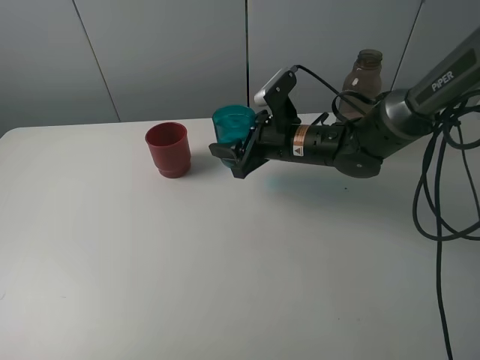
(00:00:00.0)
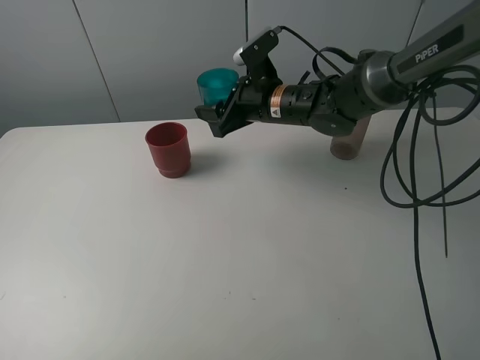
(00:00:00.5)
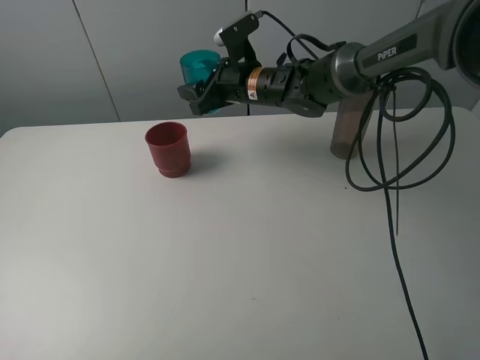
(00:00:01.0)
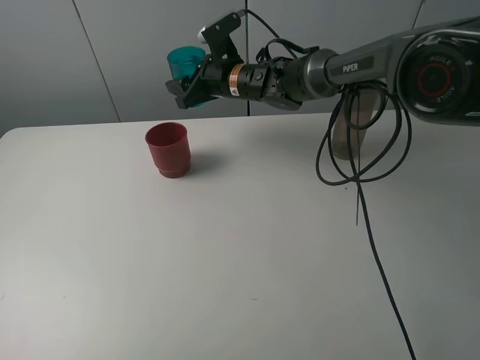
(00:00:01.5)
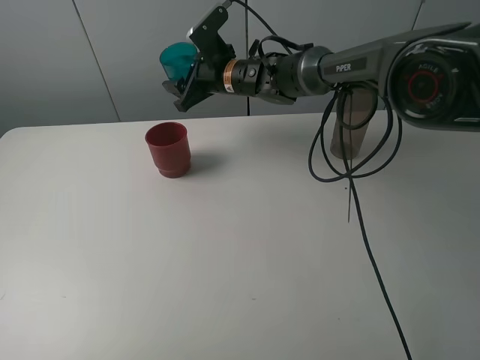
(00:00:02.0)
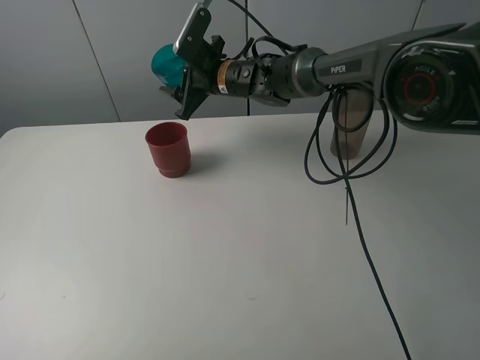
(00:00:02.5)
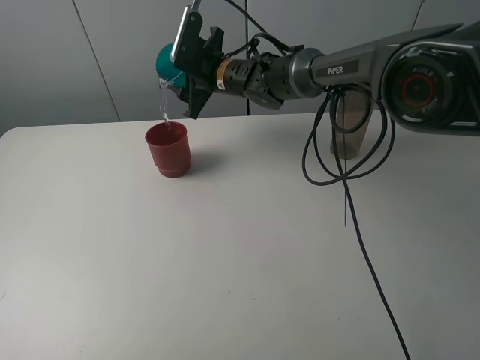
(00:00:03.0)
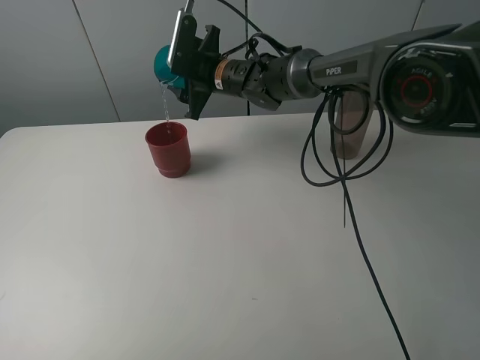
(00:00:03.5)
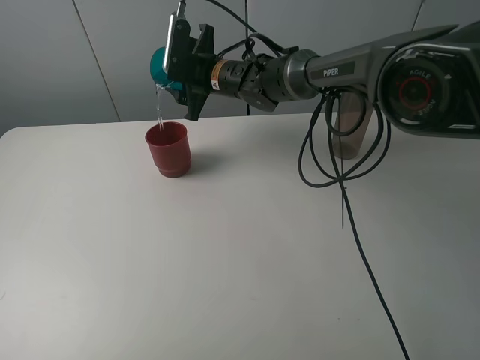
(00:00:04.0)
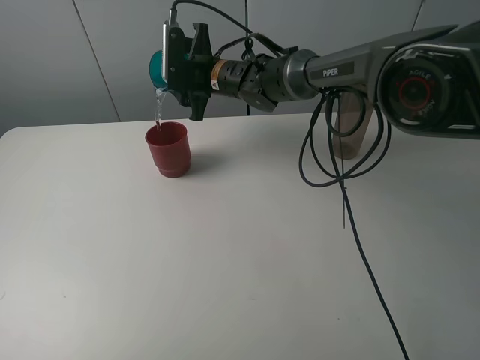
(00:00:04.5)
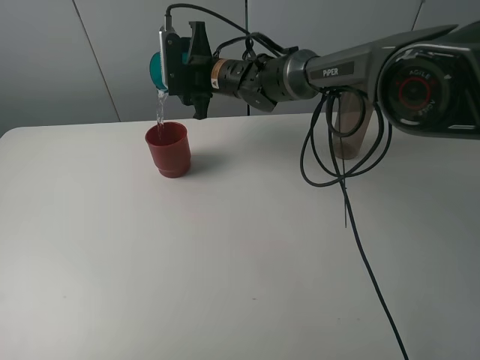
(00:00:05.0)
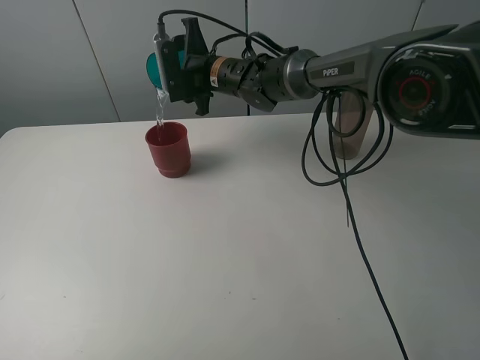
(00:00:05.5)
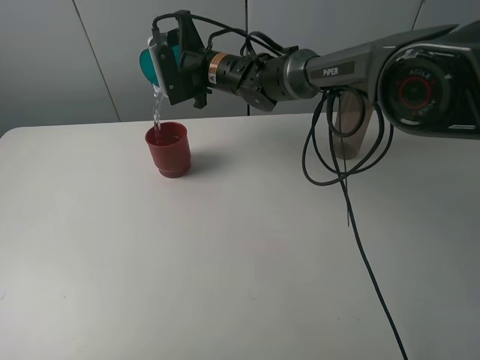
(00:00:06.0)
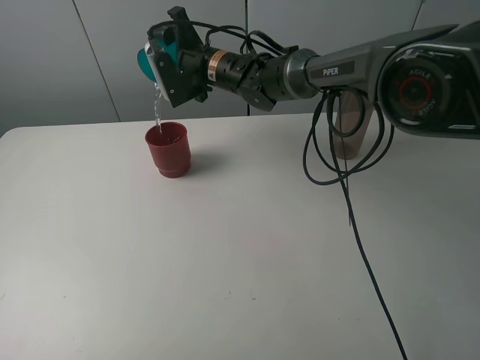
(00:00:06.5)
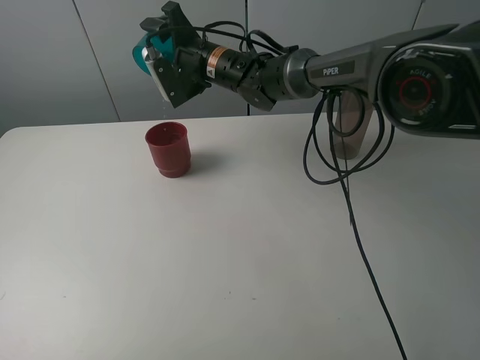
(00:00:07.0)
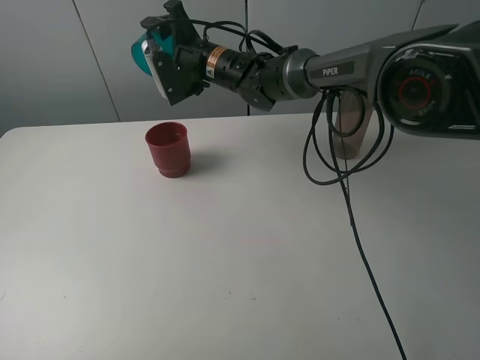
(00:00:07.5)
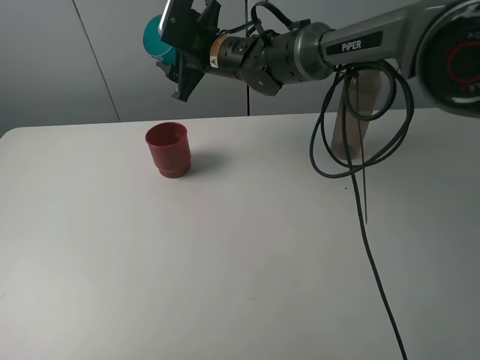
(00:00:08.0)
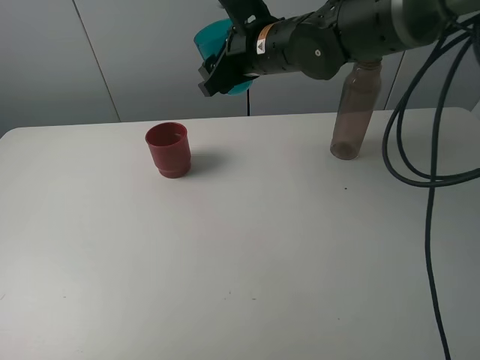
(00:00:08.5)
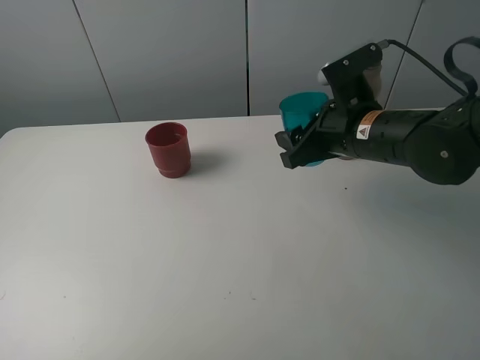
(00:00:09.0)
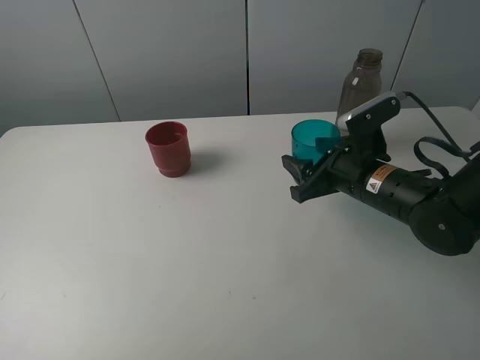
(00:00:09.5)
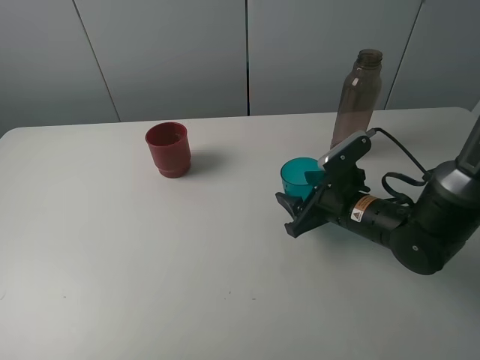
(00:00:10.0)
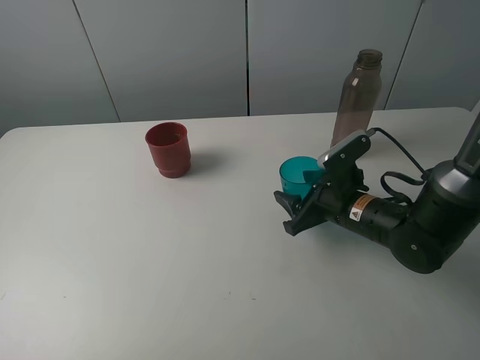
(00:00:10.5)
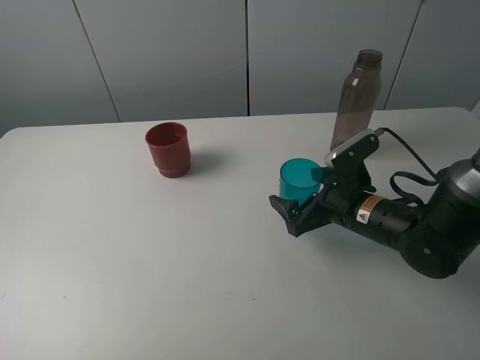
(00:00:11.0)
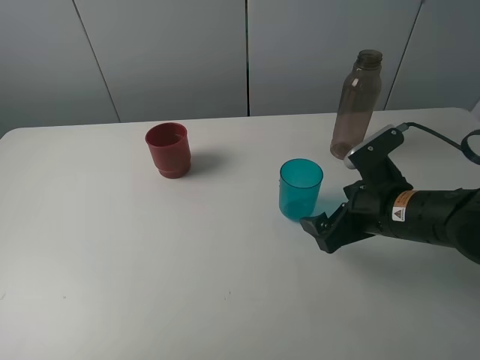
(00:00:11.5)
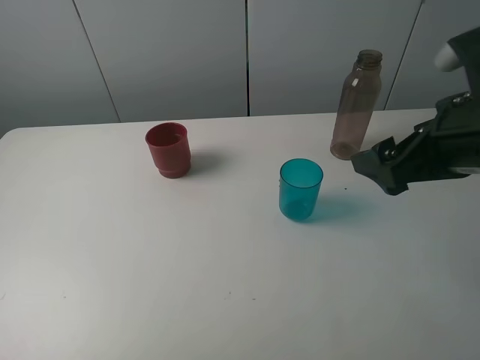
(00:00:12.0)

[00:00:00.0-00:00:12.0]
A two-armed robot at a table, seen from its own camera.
Task of the whole recording: pick up the bottle and pour water into the cup, then pick up the cup containing water and pour it into another cup.
Step, 00:00:00.0 to 00:00:06.5: Pour water from blue cup to red cup with the right gripper.
Step, 00:00:07.0 to 00:00:11.0: Place the blue cup with the right gripper.
00:00:00.0 to 00:00:02.0: The right gripper moves forward and to the left, approximately 15 cm.
00:00:08.0 to 00:00:10.0: The right gripper goes about 30 cm to the right, backward and downward.
00:00:10.0 to 00:00:12.0: The right gripper goes approximately 20 cm upward, and opens up.

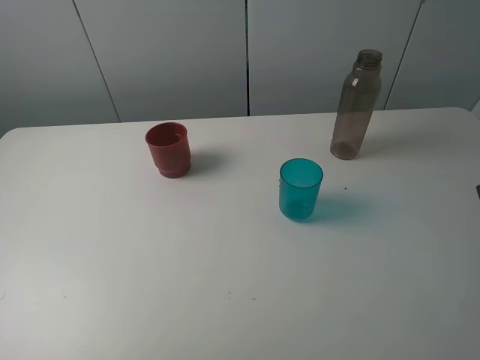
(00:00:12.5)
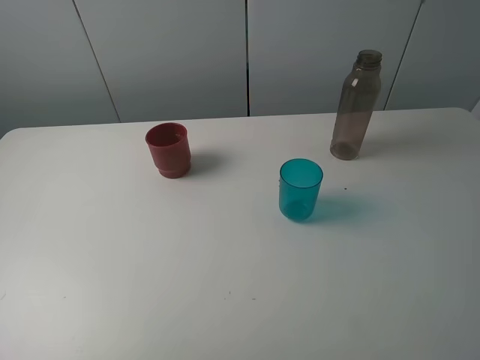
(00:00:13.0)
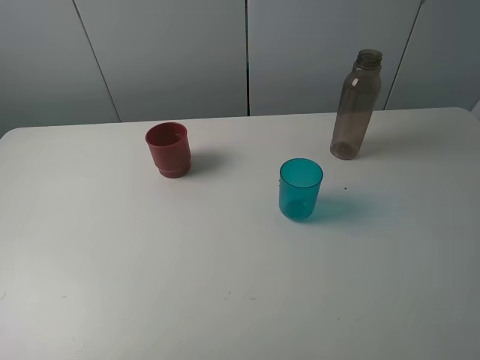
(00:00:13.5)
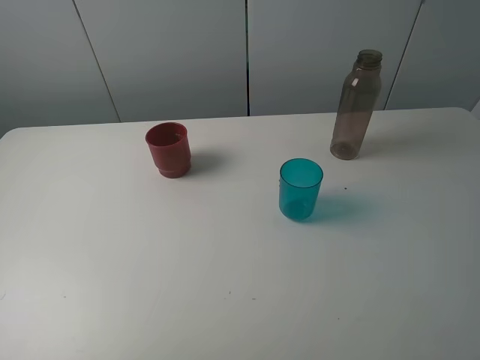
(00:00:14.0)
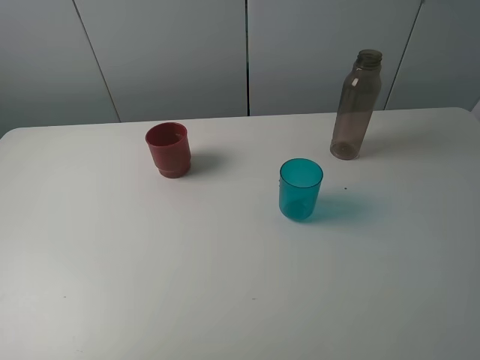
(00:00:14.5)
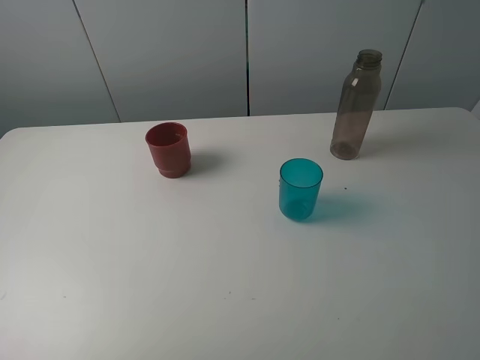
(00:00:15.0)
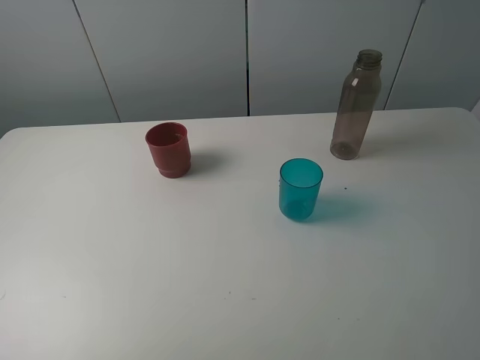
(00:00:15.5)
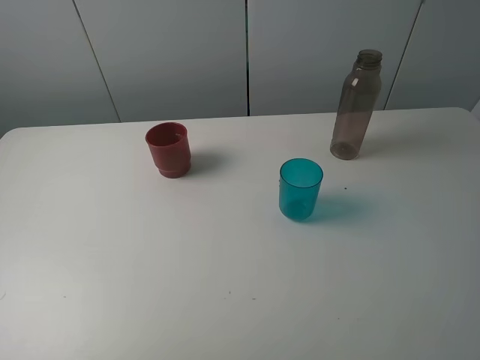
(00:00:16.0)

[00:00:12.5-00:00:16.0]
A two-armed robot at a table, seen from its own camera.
Task of the whole recording: pick up the bottle and pour water into the cup, then pick up the cup containing water and pour it into another cup.
00:00:14.5 to 00:00:16.0: The two grippers keep their place.

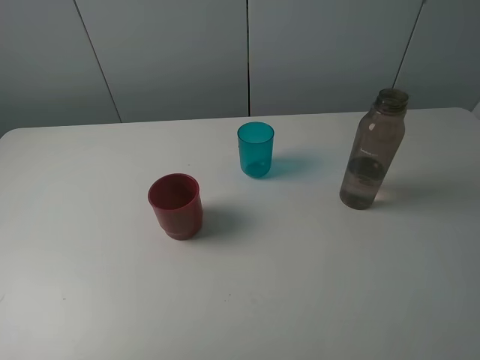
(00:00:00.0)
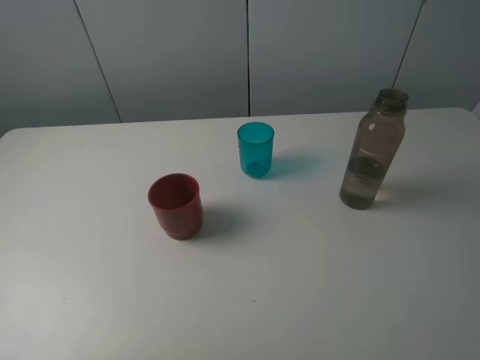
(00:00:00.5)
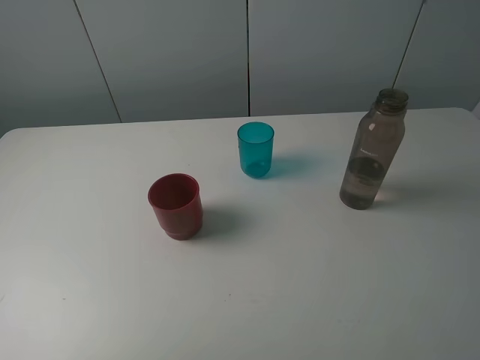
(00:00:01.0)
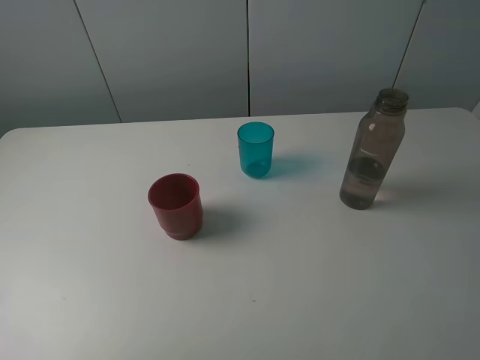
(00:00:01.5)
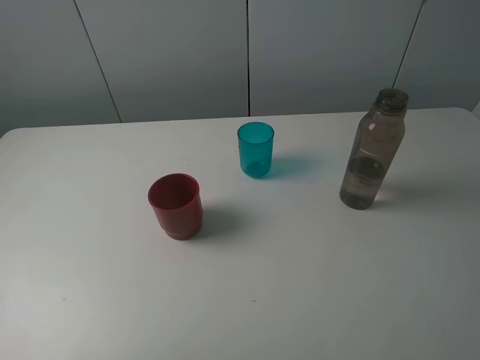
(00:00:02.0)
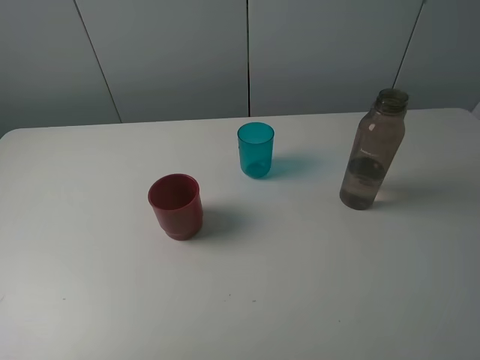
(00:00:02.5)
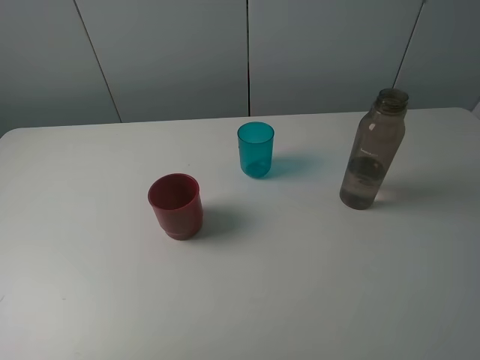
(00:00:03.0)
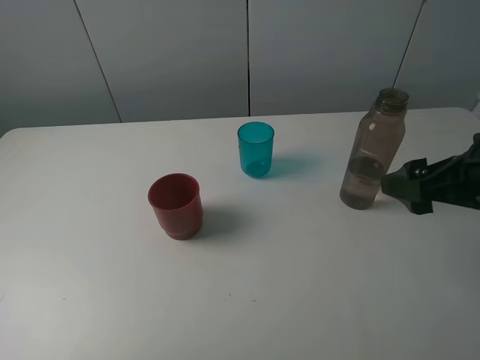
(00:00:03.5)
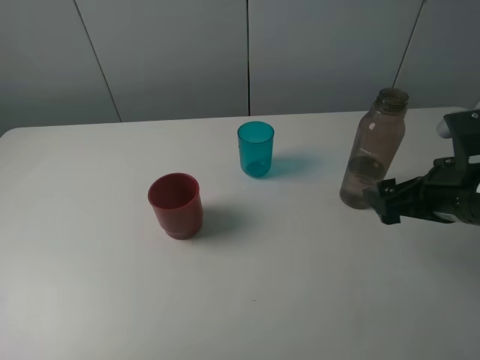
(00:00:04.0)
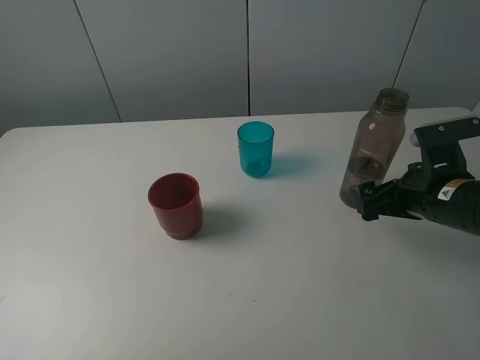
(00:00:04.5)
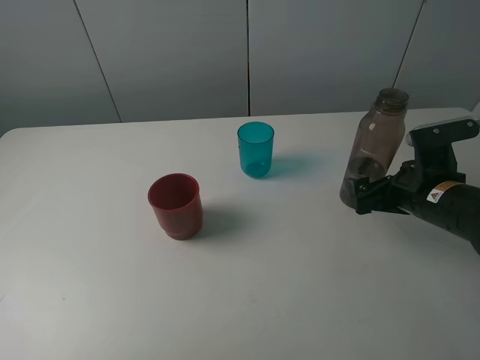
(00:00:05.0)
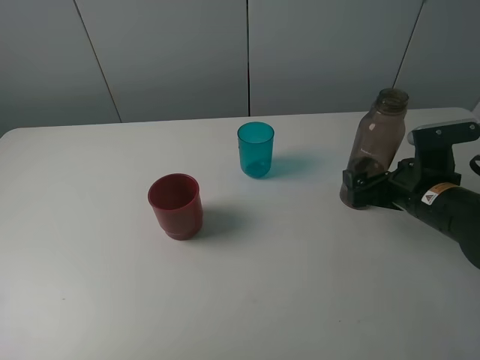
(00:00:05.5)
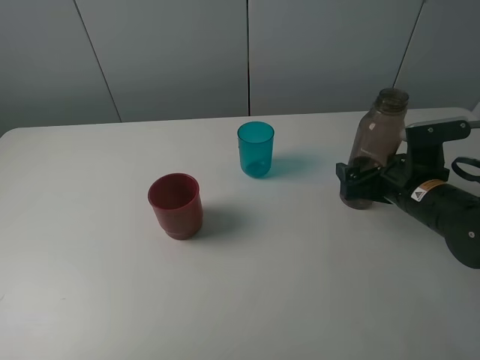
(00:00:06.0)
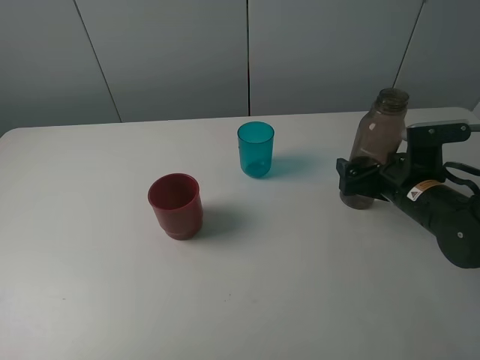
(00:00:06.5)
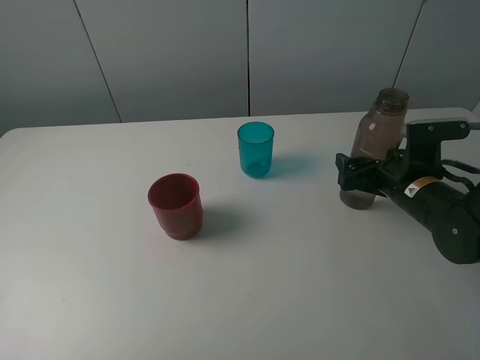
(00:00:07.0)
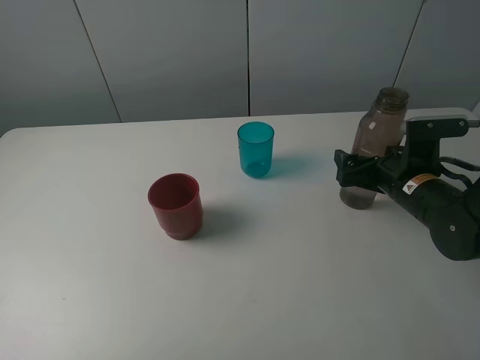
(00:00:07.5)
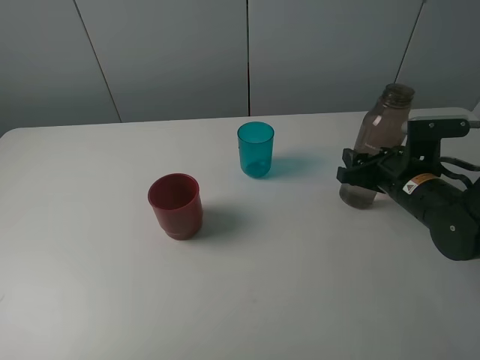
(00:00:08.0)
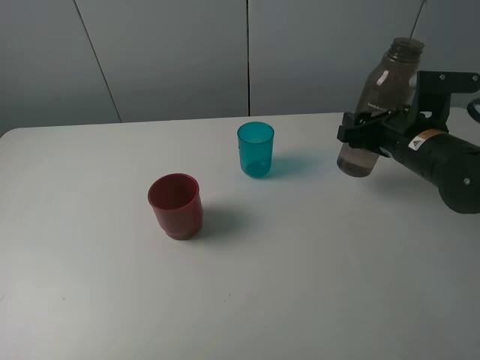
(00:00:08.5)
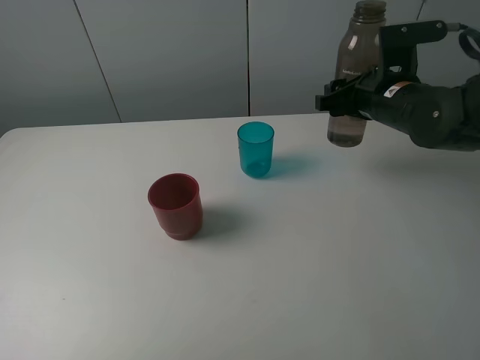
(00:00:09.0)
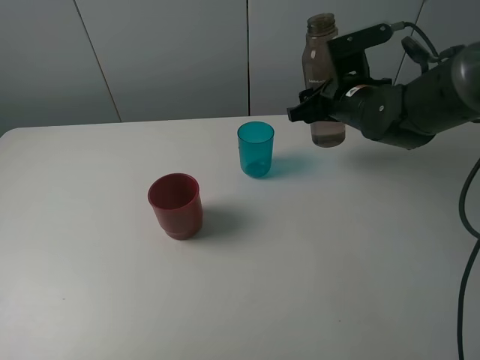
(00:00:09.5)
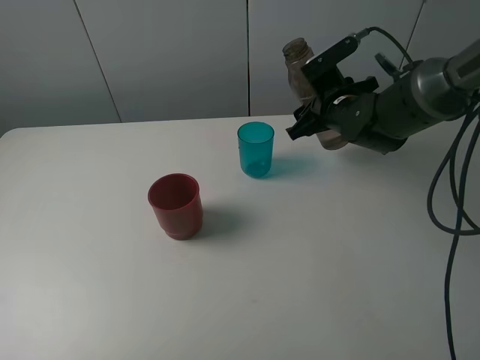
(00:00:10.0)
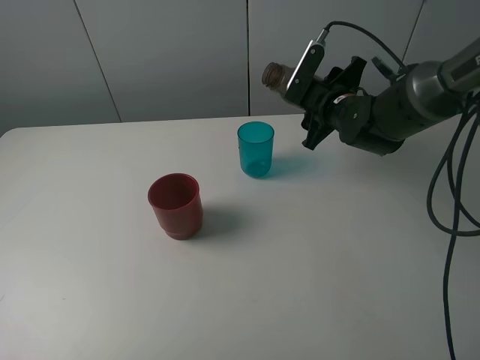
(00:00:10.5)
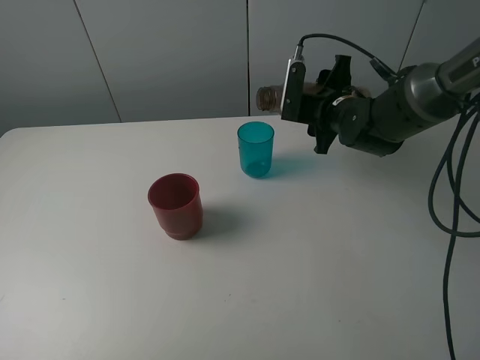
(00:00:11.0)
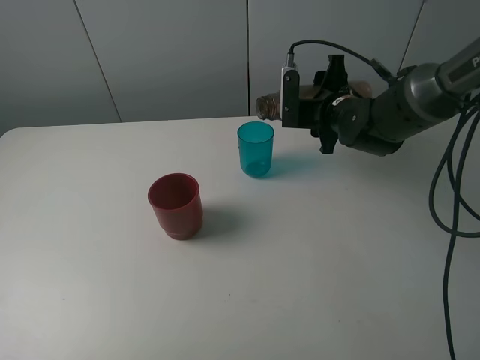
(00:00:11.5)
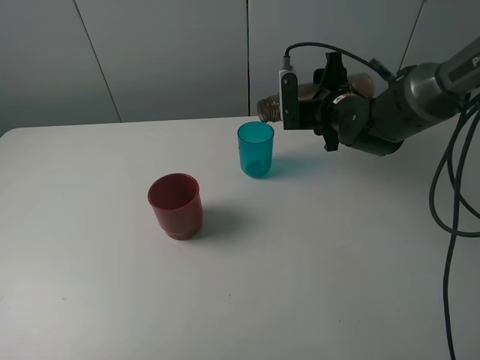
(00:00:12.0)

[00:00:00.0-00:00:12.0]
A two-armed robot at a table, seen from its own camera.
Task of the whole recording: pick up the bottle and pour water into the cup, then pick up the cup containing water and pour it into another cup.
Step, 00:00:00.0 to 00:00:07.5: Grasp the brown bottle with the right gripper.
00:00:00.0 to 00:00:02.0: The two grippers keep their place.
00:00:02.0 to 00:00:04.0: The right gripper heads forward and downward, covering roughly 25 cm.
00:00:04.0 to 00:00:06.0: The right gripper shifts about 10 cm downward and forward.
00:00:06.0 to 00:00:08.0: The right gripper closes.
00:00:08.0 to 00:00:10.0: The right gripper goes some 15 cm forward and to the left.
